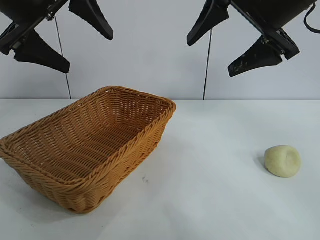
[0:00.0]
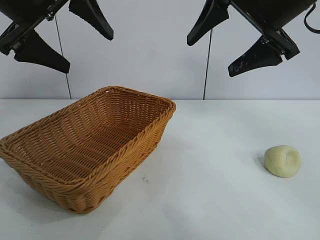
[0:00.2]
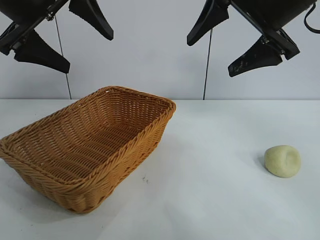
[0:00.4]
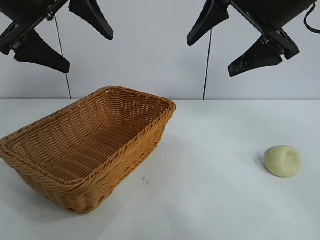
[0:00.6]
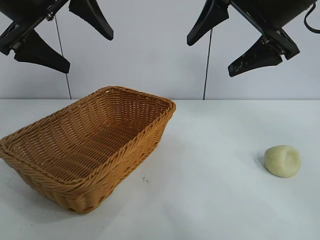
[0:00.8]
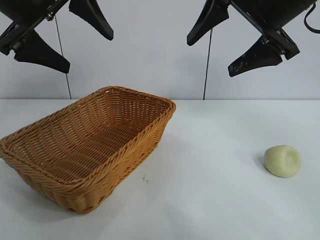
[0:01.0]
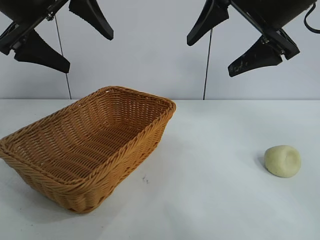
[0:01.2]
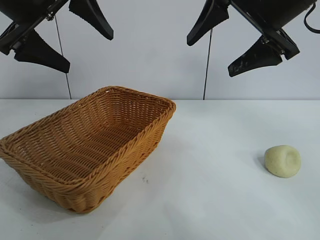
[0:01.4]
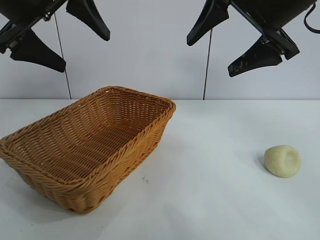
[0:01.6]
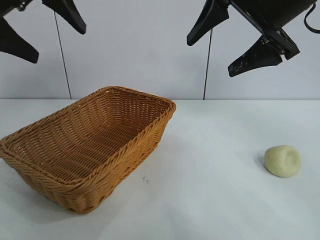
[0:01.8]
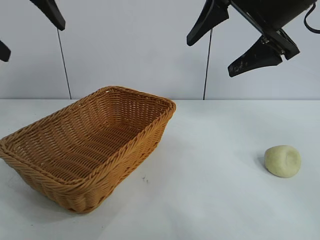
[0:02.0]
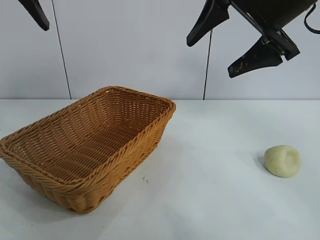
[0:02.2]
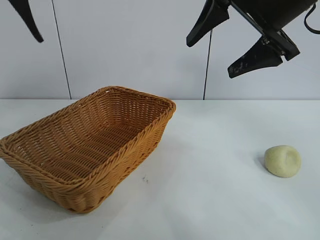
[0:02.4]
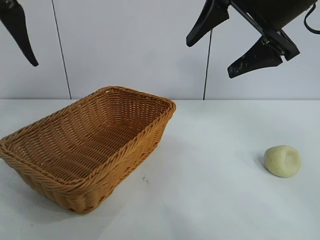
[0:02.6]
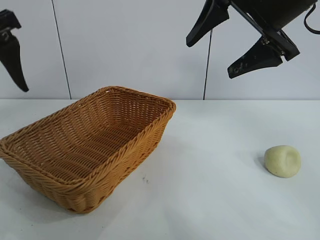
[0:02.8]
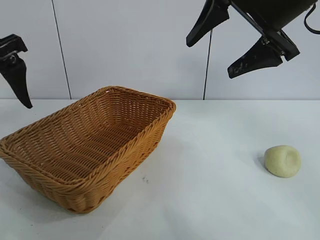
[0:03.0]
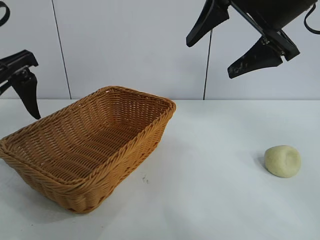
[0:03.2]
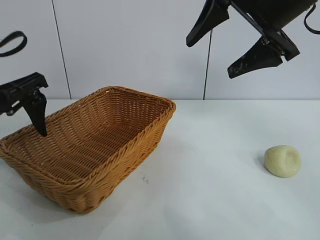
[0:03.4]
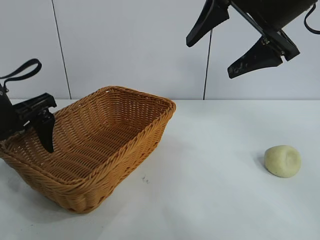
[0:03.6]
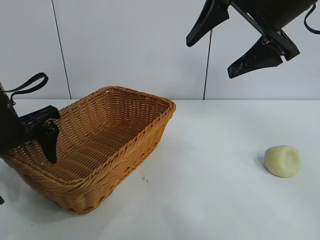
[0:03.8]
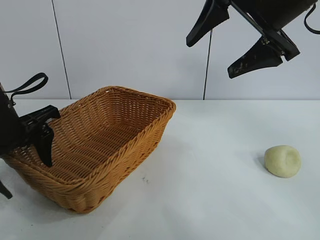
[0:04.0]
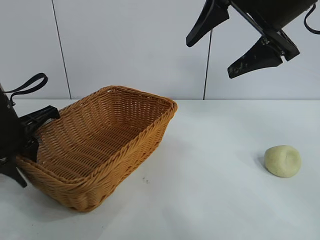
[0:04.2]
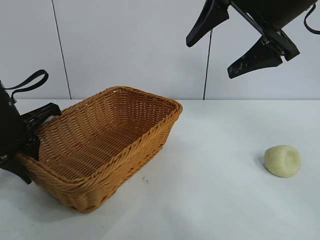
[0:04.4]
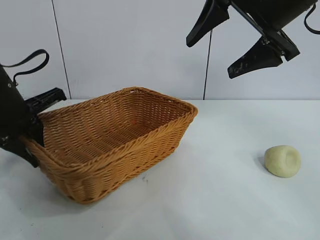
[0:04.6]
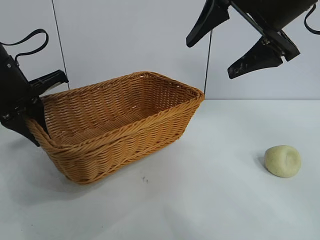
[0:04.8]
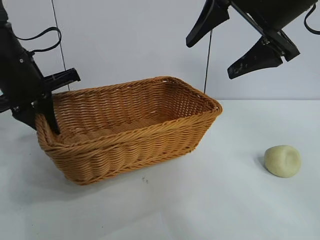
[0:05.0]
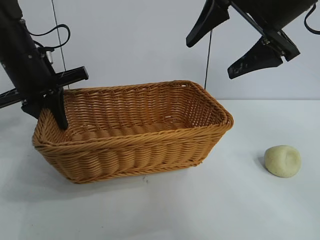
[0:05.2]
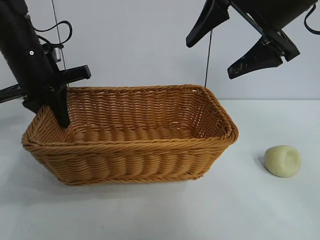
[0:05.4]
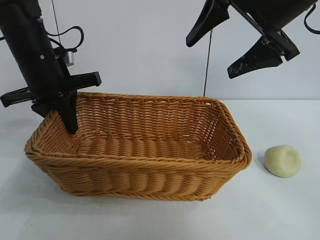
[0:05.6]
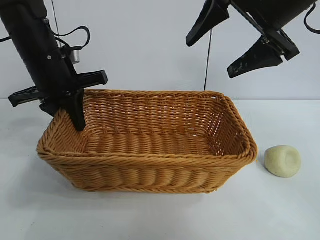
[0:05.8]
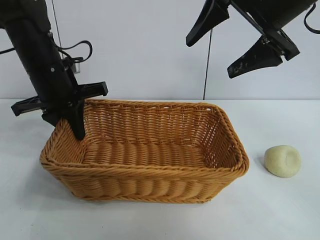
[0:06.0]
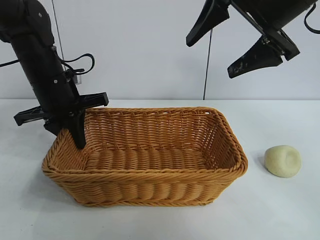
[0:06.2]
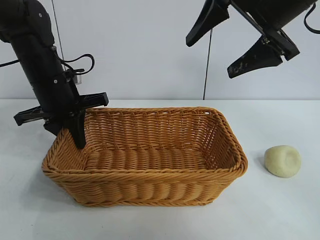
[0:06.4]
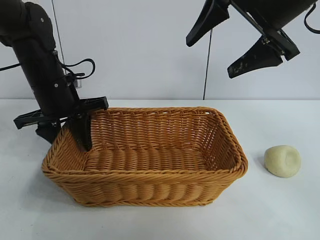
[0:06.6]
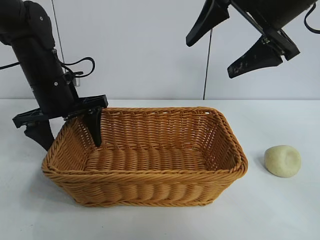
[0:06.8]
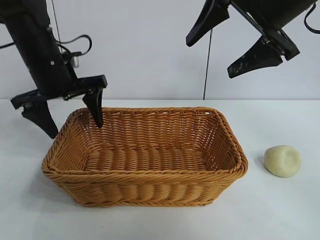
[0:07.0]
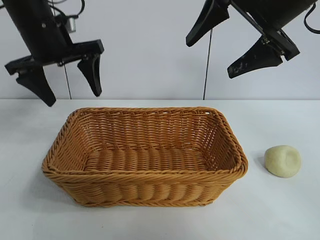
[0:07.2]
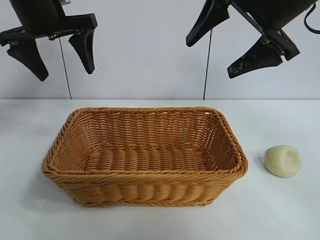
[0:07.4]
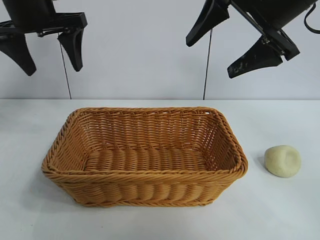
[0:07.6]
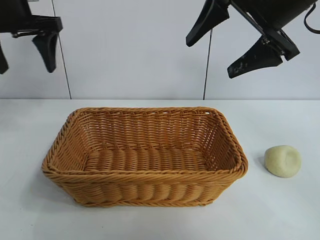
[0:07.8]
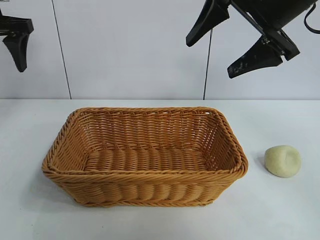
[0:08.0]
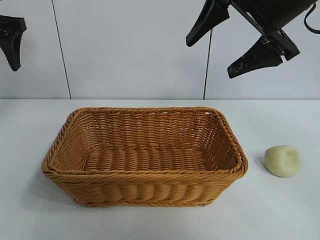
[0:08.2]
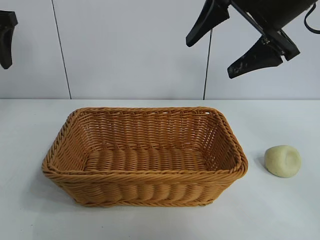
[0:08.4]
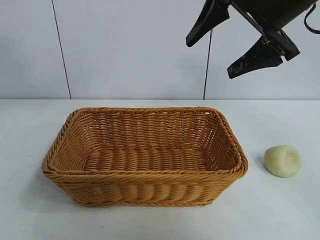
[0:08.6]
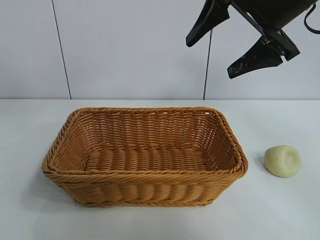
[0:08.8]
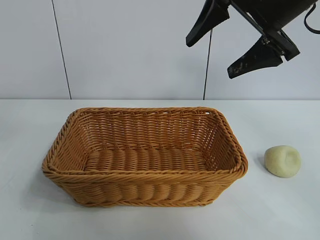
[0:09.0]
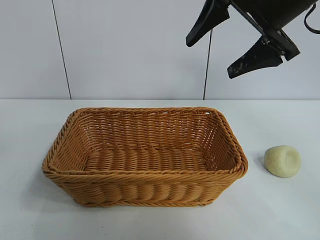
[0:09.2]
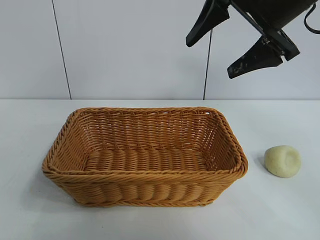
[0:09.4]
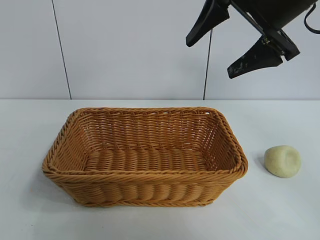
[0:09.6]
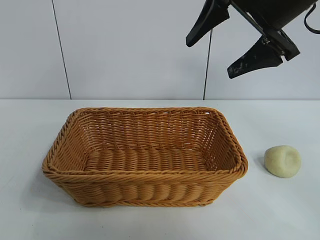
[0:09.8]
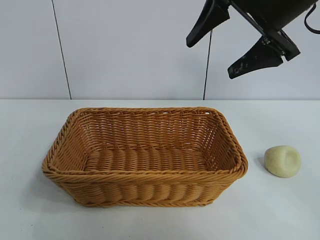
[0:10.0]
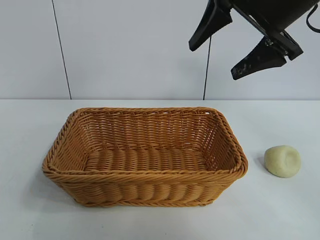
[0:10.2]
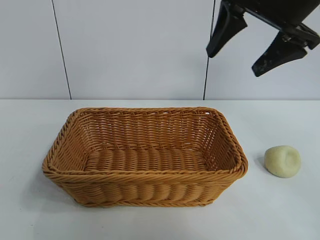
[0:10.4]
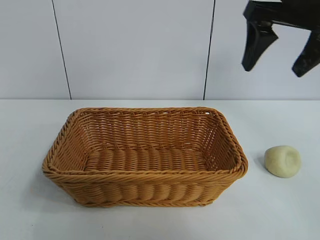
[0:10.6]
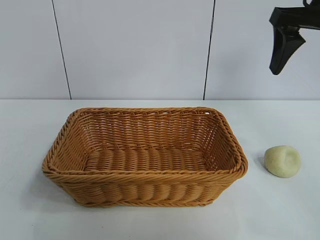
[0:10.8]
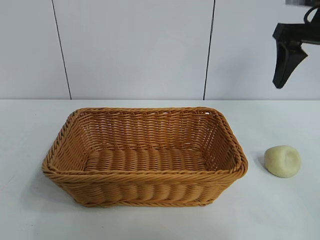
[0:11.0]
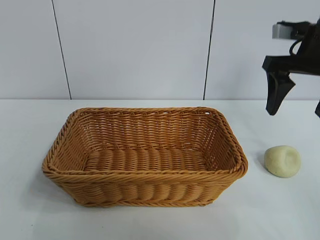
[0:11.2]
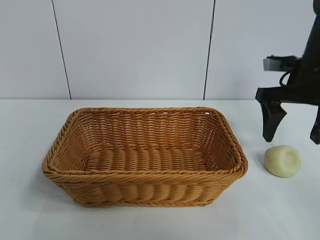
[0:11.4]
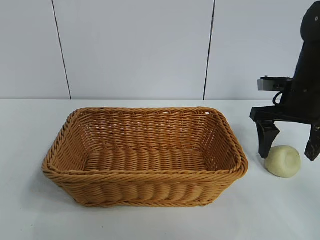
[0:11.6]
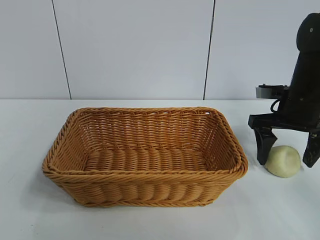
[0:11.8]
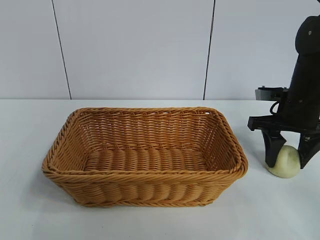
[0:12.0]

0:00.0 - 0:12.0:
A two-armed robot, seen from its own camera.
Task of the whole recording: pick up the egg yolk pastry and put it into the basket.
Step, 0:01.4 - 0:04.2: Grasp the basket with left gripper.
Step, 0:04.4 - 0:06.4: Place the basket in the center of view with left gripper.

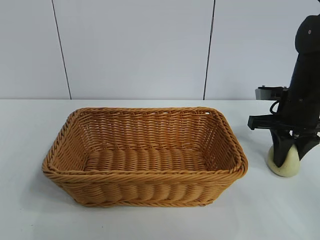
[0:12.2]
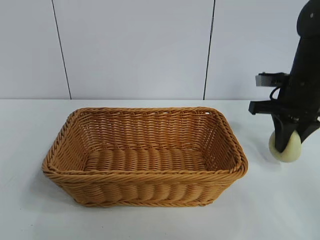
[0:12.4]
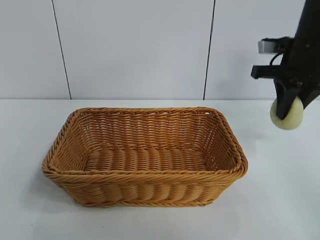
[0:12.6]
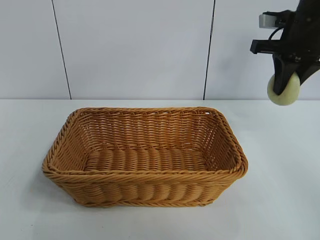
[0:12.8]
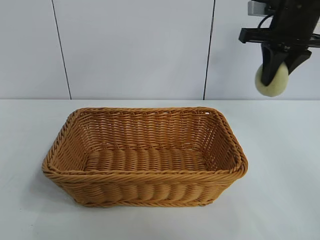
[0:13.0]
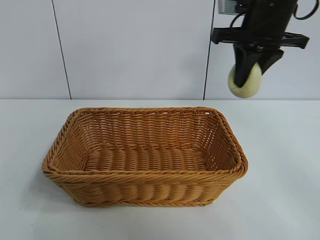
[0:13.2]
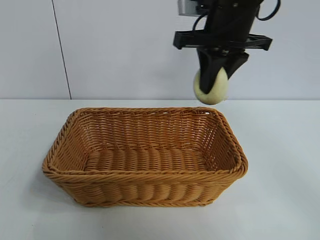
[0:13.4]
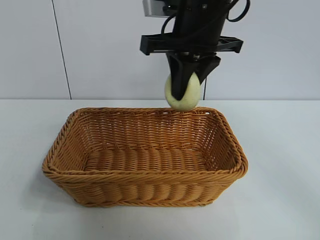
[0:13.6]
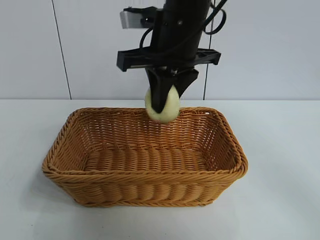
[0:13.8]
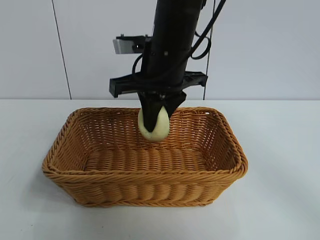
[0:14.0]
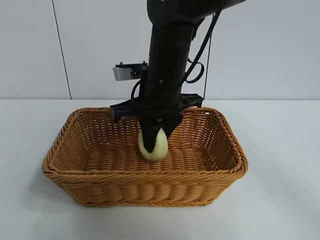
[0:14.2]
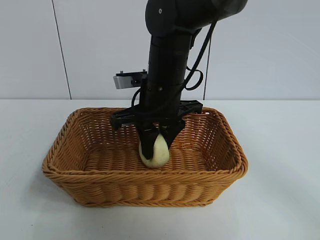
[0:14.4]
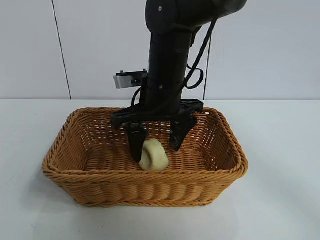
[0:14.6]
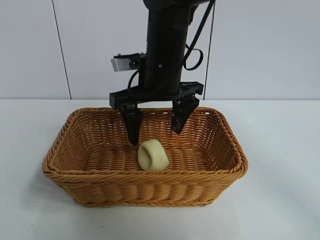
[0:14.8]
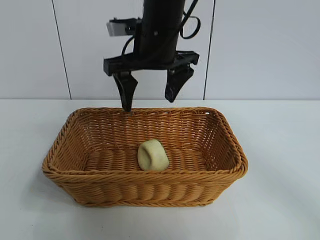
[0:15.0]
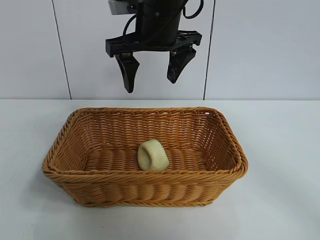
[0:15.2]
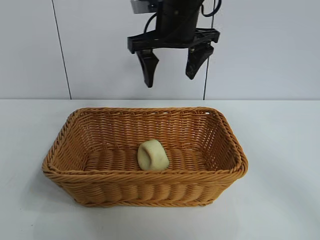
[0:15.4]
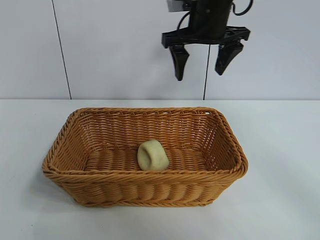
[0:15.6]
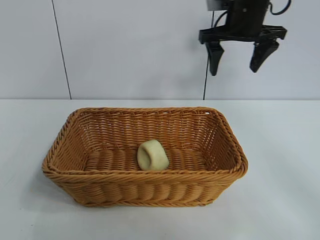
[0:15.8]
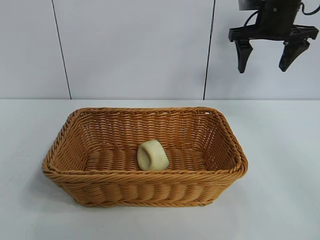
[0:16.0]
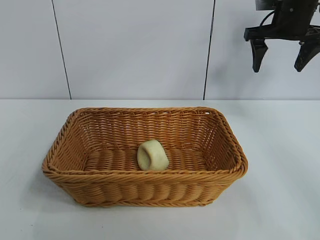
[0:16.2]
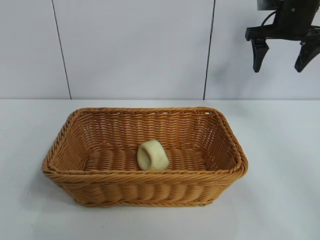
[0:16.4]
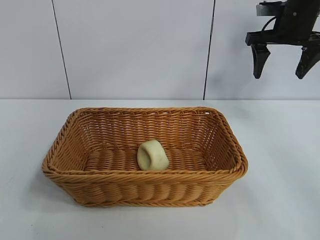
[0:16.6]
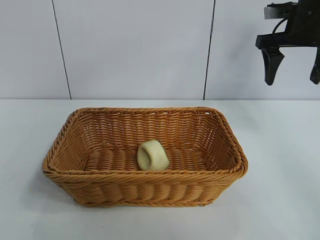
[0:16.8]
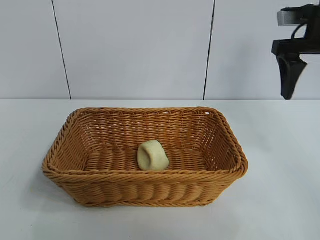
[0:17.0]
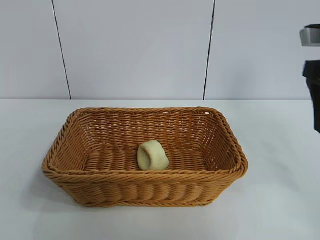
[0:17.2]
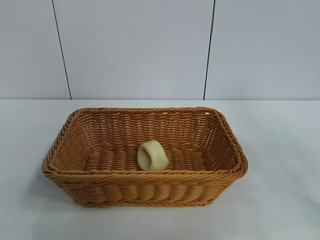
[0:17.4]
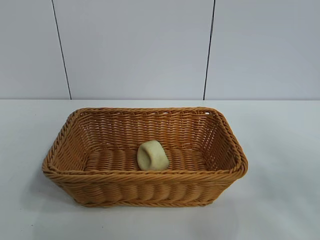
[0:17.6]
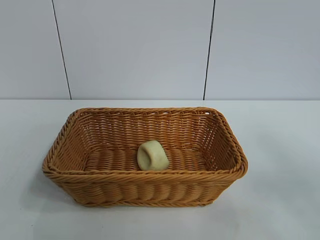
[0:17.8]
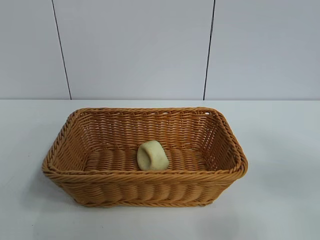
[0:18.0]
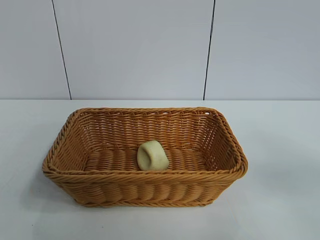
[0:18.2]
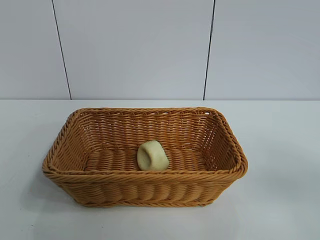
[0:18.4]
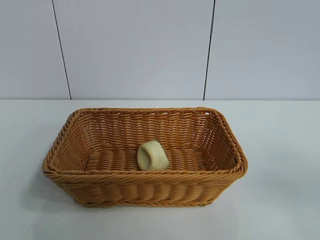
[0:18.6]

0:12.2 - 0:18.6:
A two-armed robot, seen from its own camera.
Task of the whole recording: pick up the egg yolk pastry and put it into the basket.
Step, 0:12.2 - 0:14.4: Place the egg yolk pastry in the basket with right gripper.

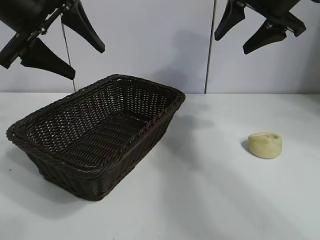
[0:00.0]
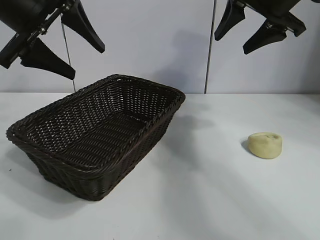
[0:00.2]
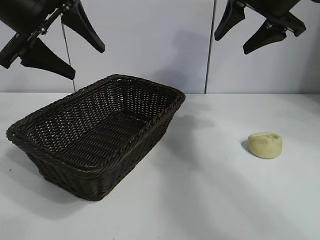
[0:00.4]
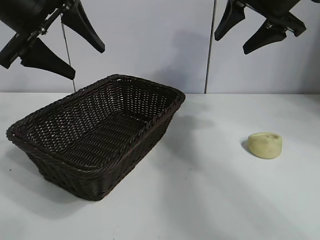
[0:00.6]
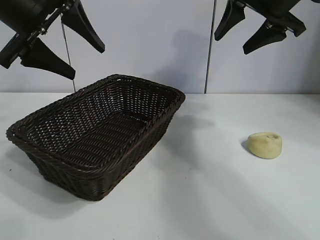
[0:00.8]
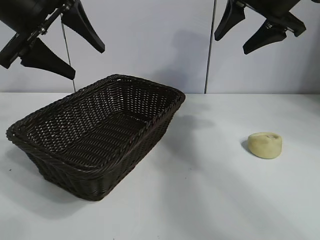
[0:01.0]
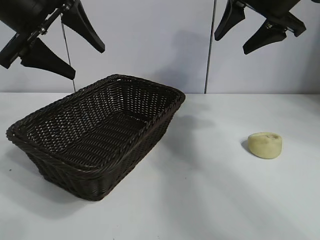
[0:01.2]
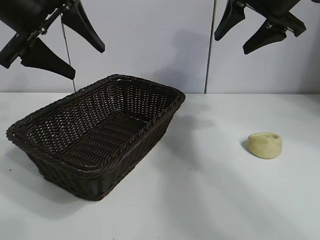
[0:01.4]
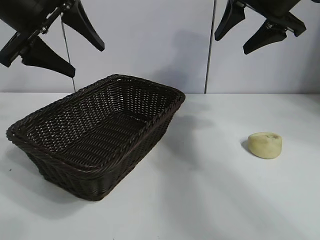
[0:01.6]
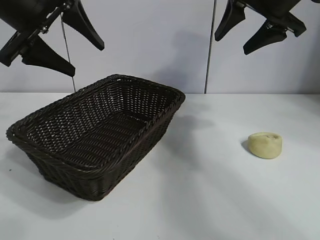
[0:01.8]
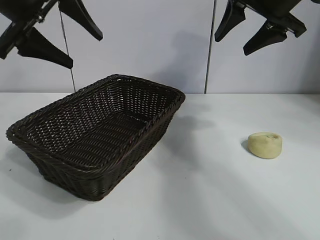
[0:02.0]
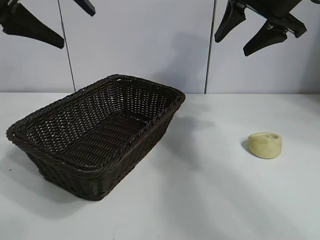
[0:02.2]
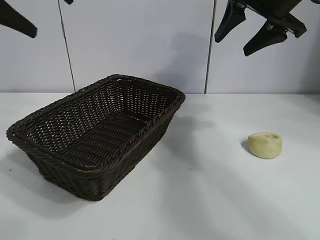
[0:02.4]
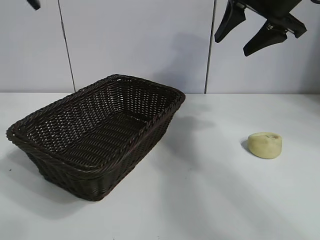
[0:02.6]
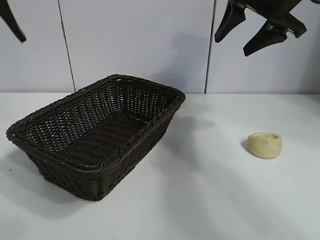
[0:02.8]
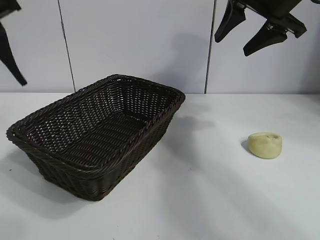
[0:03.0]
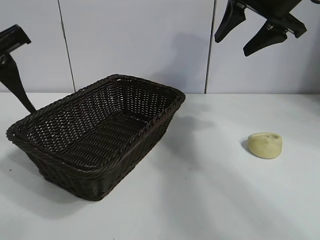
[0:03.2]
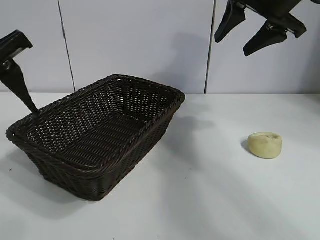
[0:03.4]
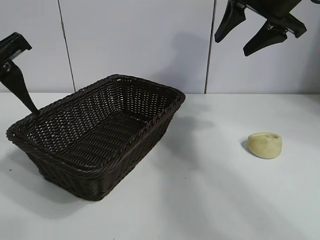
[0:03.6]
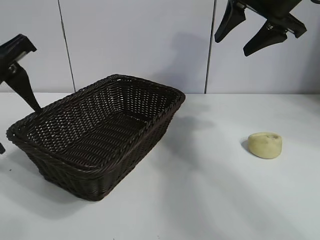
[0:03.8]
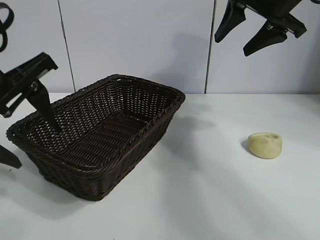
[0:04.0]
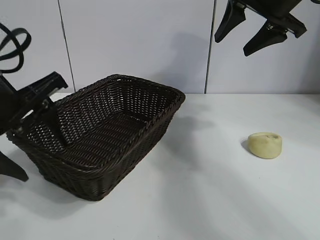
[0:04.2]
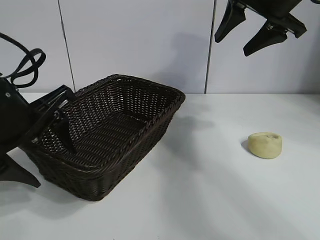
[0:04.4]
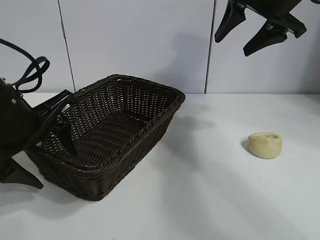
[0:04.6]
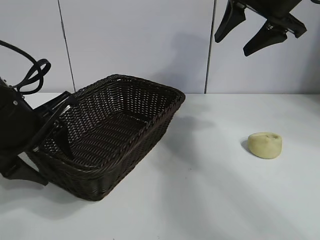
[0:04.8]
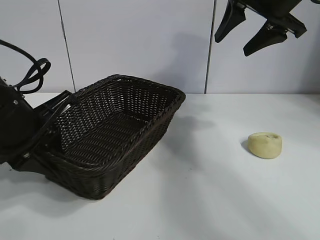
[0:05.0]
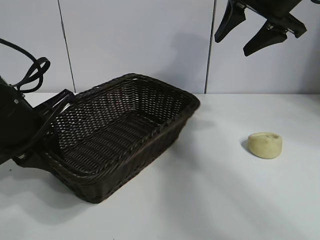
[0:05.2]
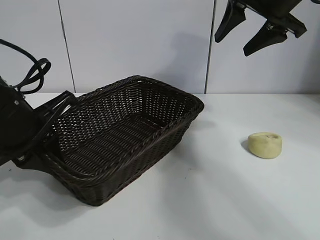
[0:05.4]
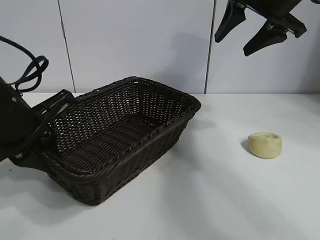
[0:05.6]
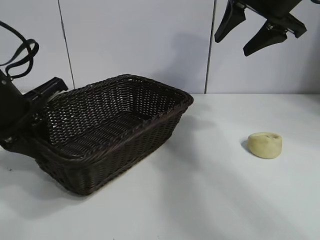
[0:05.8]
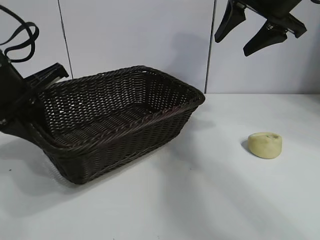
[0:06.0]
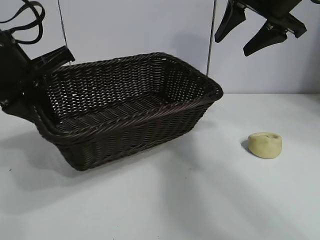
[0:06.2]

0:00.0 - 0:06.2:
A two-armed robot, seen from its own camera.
Task of the whole recording: pick up the egg yolk pastry and put it into the basket.
Step, 0:01.4 - 0:05.4: Grasp the basket with left gripper.
